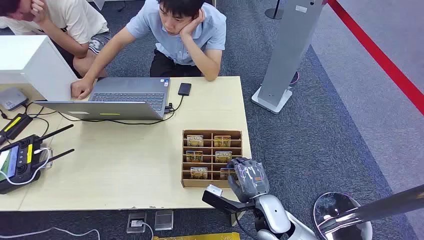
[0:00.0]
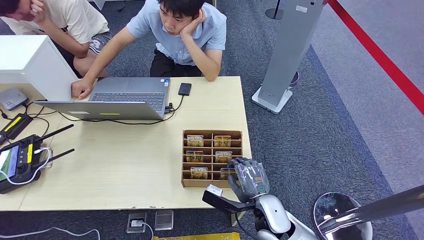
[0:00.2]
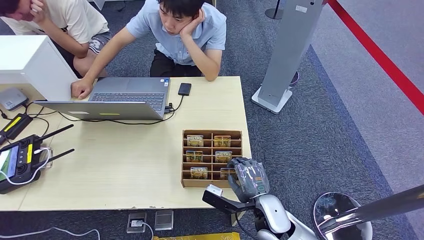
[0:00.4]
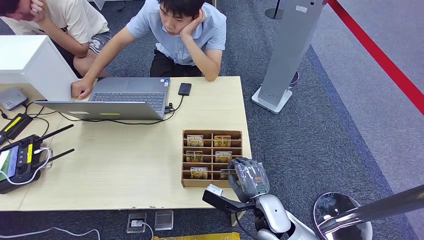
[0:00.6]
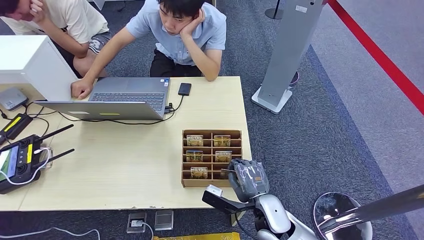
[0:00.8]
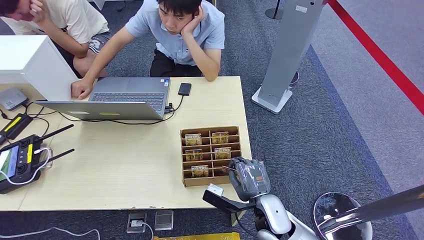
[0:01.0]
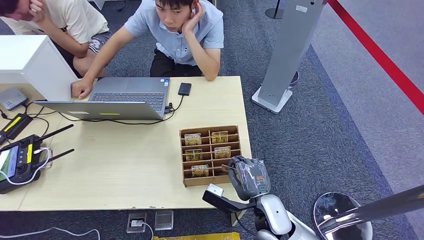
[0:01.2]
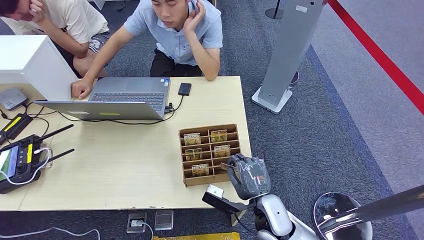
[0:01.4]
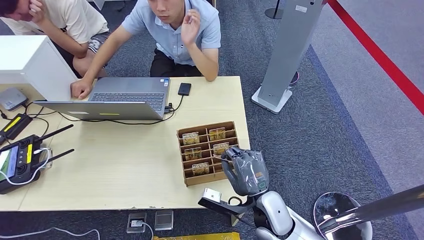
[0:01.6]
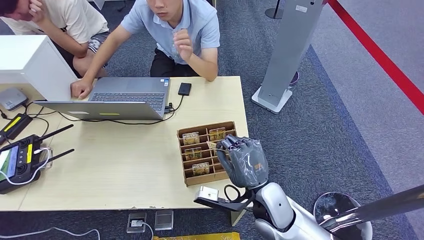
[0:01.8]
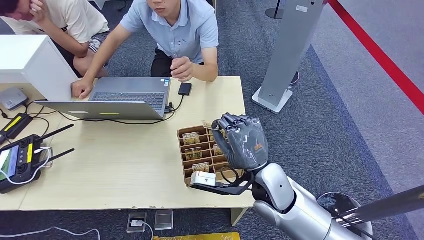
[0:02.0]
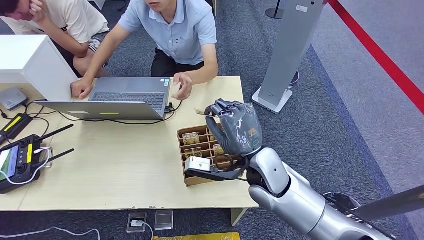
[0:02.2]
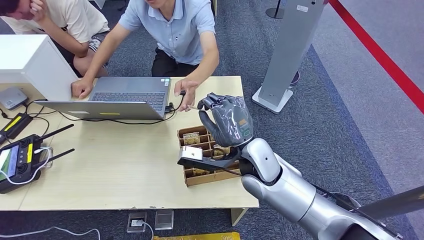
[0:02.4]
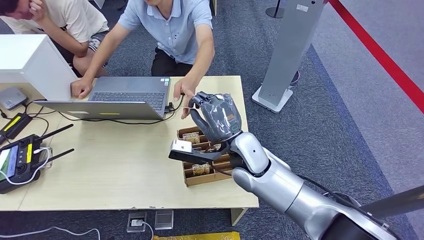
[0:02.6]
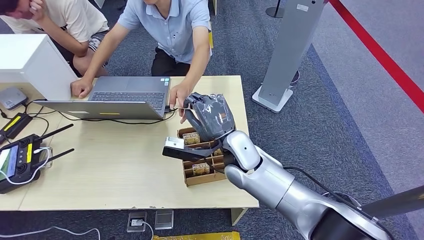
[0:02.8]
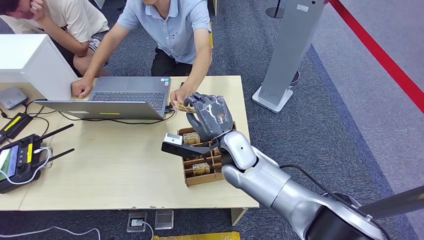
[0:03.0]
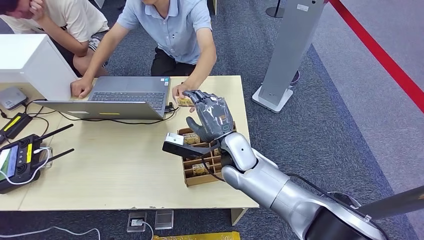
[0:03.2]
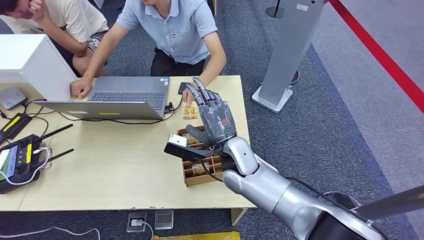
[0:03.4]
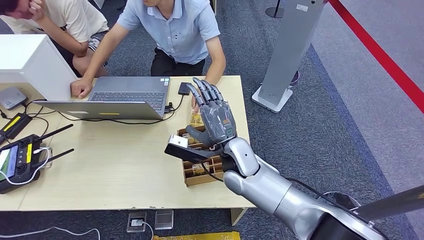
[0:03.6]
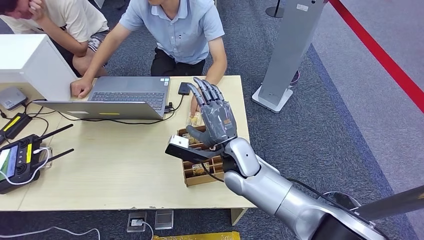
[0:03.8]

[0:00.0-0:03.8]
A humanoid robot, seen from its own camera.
Step, 0:00.0 to 0:01.8: Pick up the key card from the card box.
Step, 0:02.0 to 0:03.8: Hand the key card to the target.
0:01.2 to 0:02.6: The right hand is displaced upward, forward and to the left by about 20 cm.
0:02.6 to 0:03.8: The hands stay close to where they were, moving slightly.
